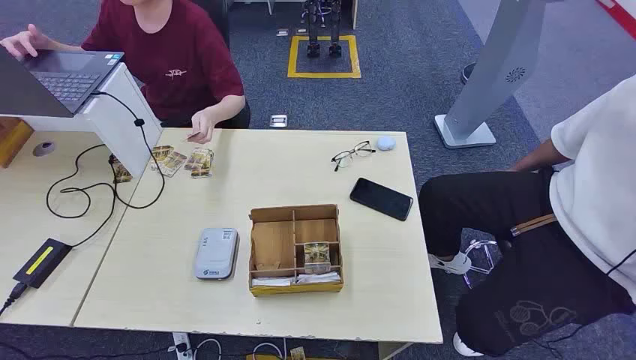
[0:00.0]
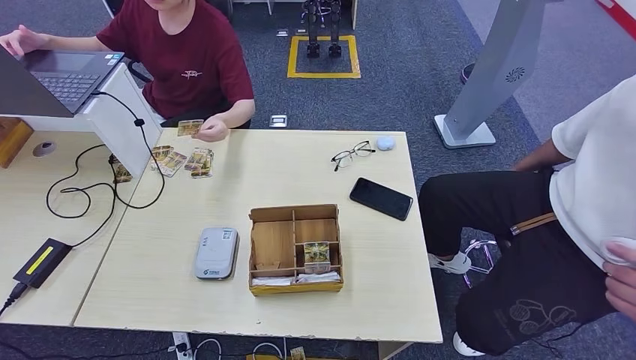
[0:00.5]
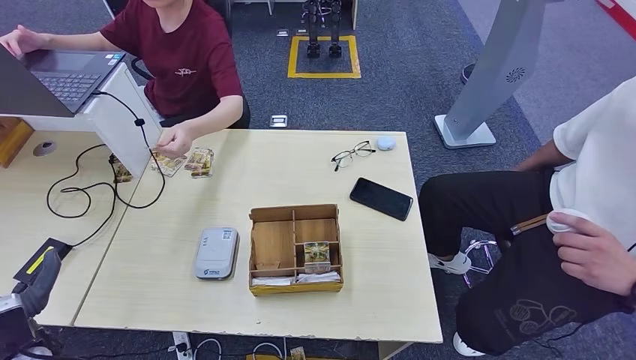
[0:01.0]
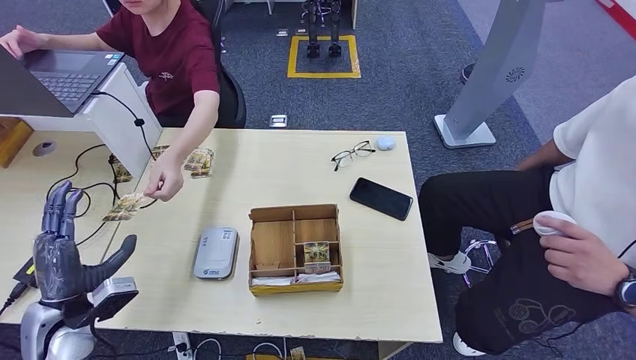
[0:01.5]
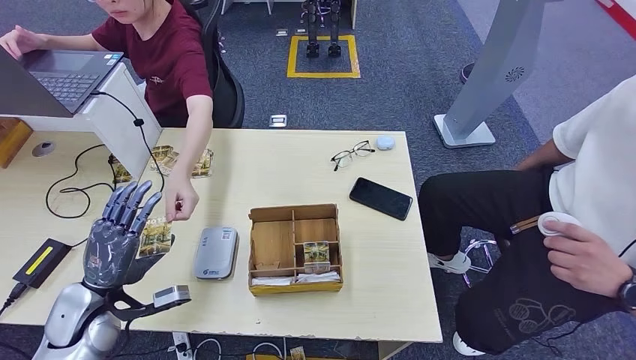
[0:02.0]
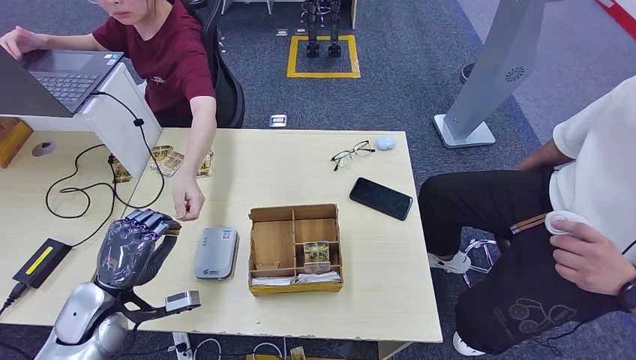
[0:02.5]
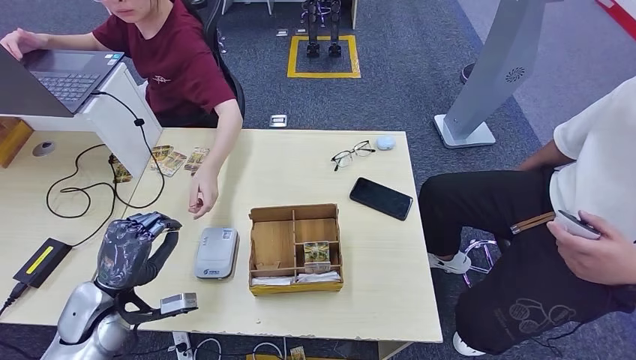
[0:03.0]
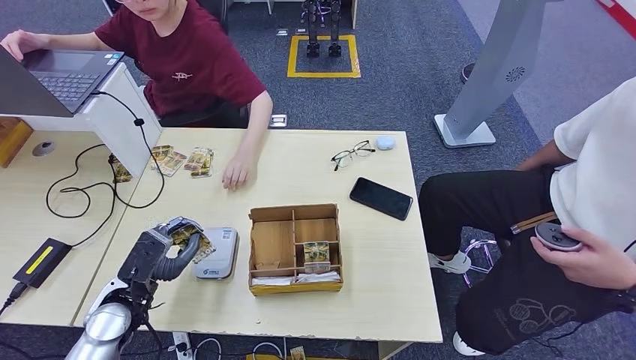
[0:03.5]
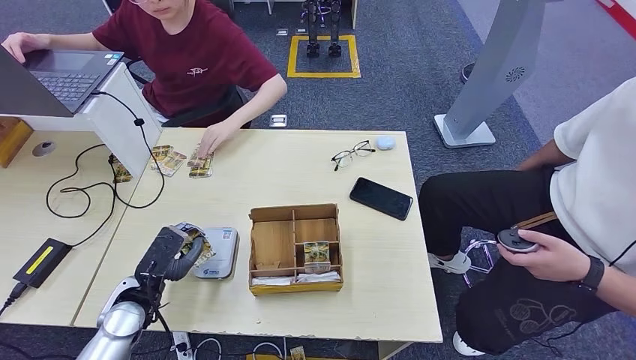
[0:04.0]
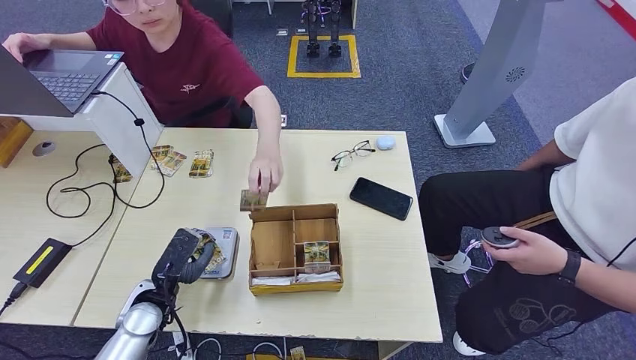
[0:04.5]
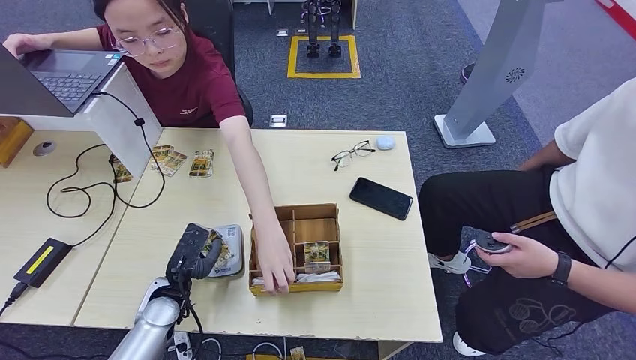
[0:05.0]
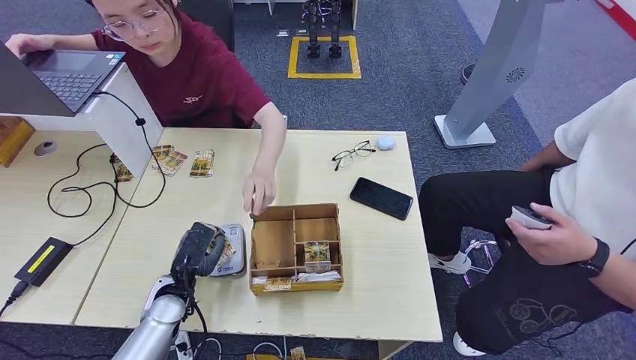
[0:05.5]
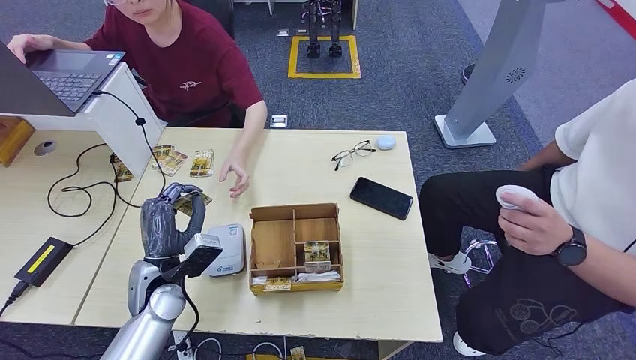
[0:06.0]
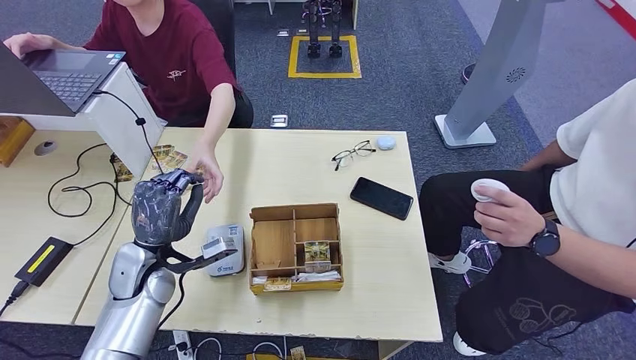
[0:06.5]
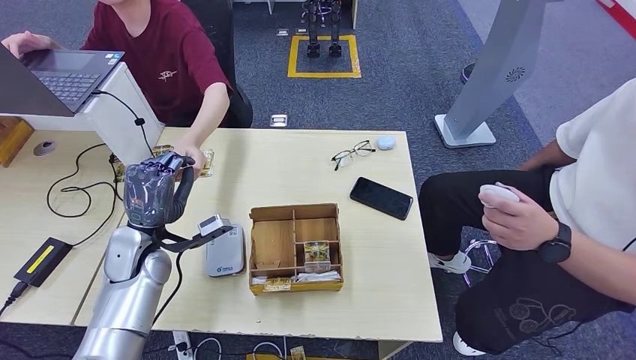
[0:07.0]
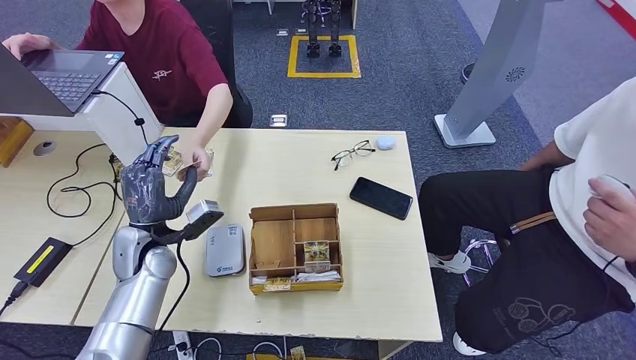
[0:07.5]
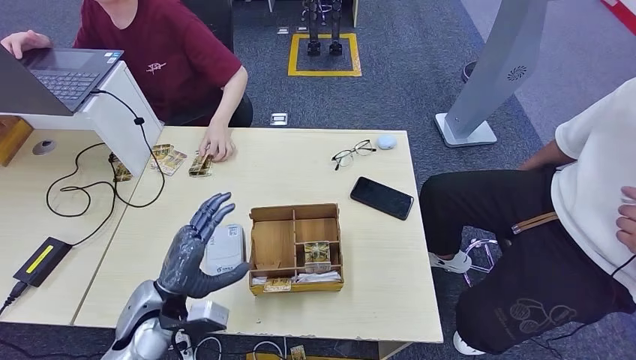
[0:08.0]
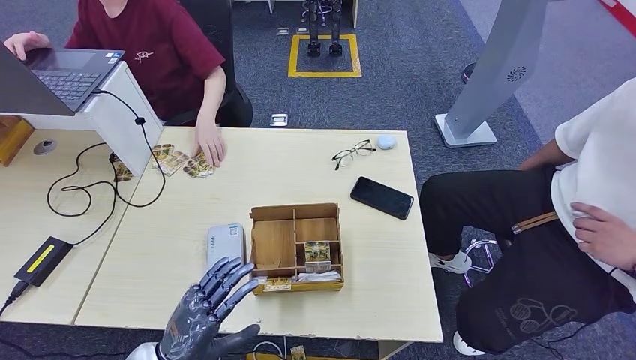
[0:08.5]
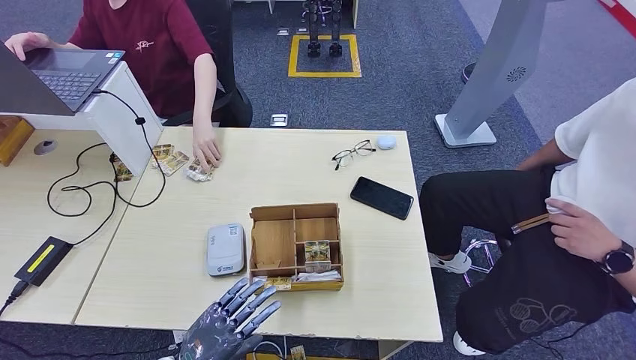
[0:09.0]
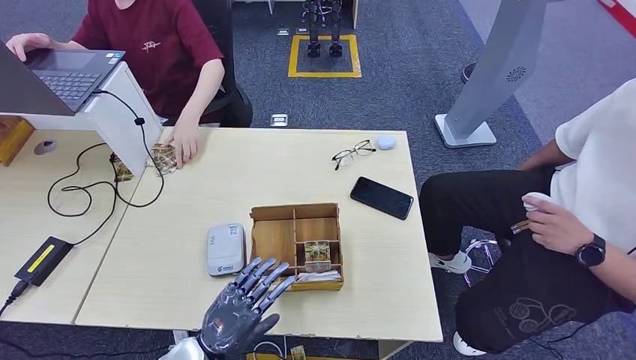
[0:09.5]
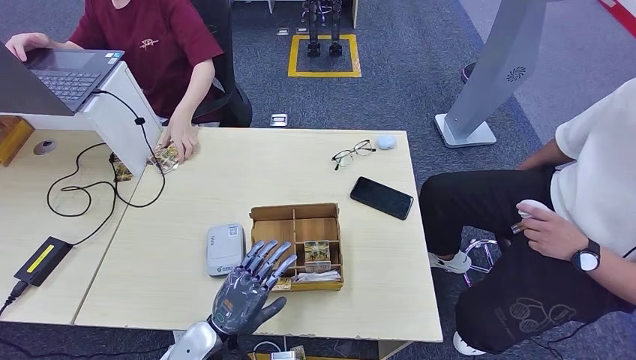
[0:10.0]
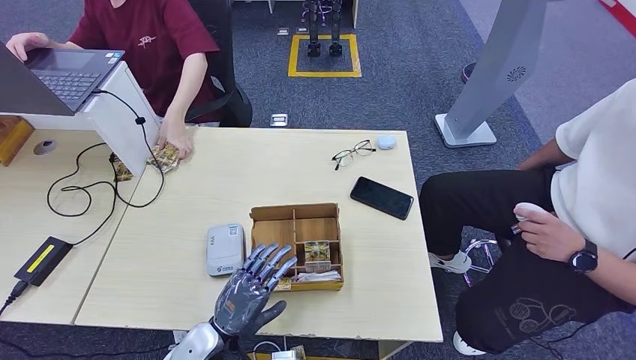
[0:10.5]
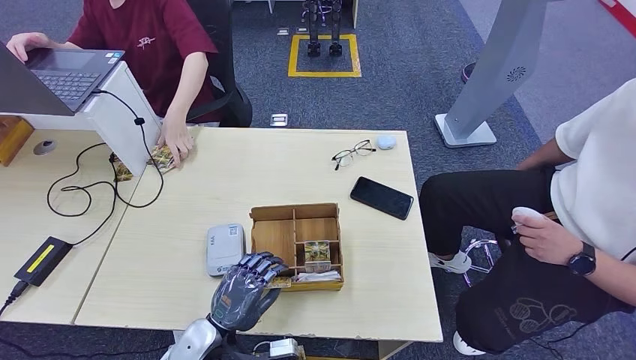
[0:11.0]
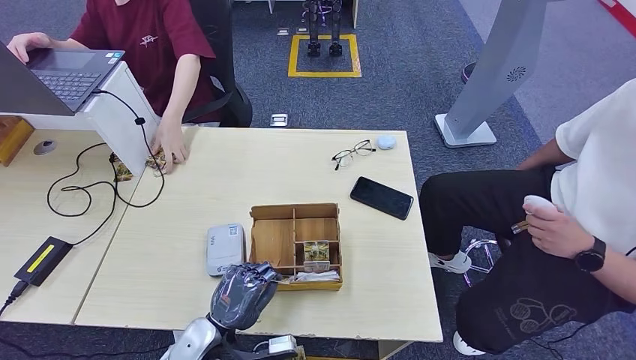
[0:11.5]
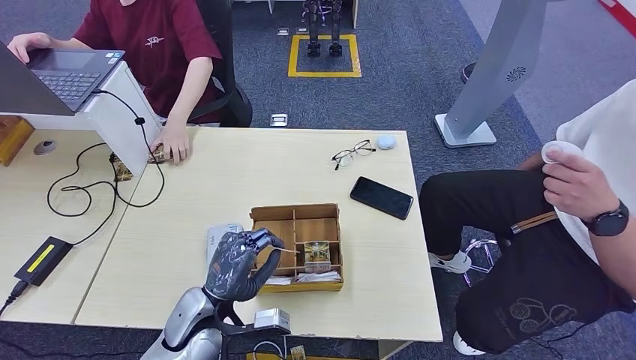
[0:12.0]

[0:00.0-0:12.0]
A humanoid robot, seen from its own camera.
Step, 0:00.0 to 0:02.5: Take the ID card from the person's hand.
Step, 0:03.0 to 0:05.0: Place the ID card on the card reader.
Step, 0:06.0 to 0:08.0: Hand the ID card to the person.
0:02.0 to 0:04.0: The left hand ends up some 5 cm from where it was.
0:04.0 to 0:06.0: The left hand goes roughly 5 cm to the right.
0:08.0 to 0:10.0: The left hand travels to the right and downward by roughly 10 cm.
0:10.0 to 0:12.0: The left hand shifts by some 5 cm.

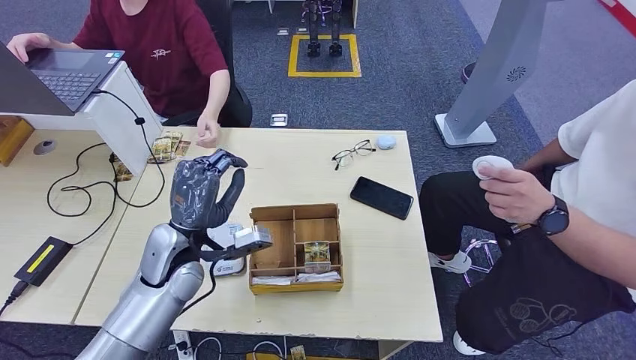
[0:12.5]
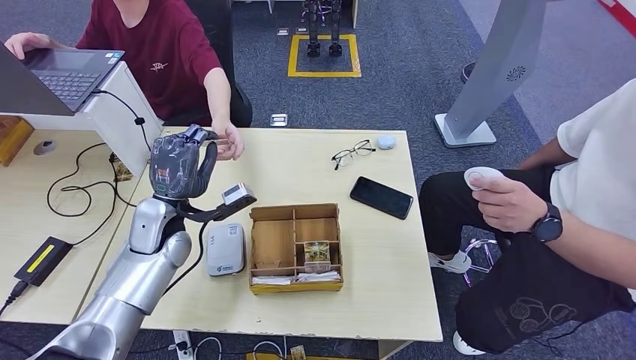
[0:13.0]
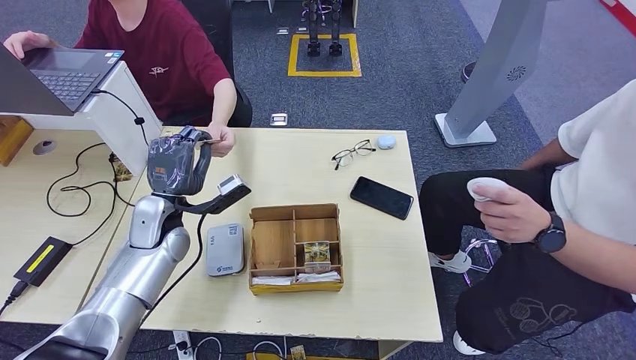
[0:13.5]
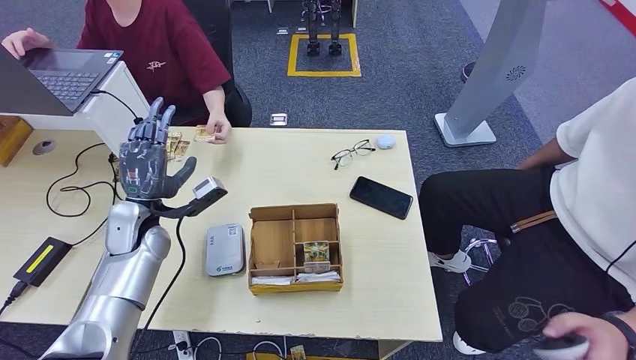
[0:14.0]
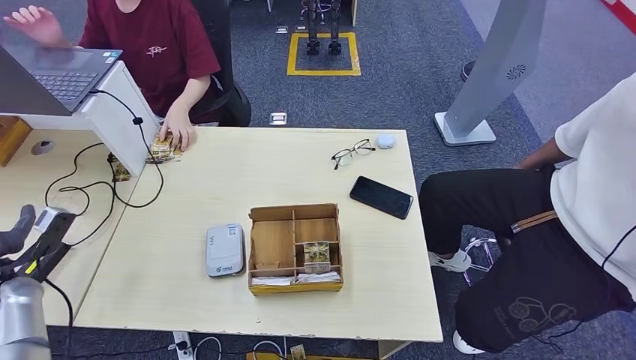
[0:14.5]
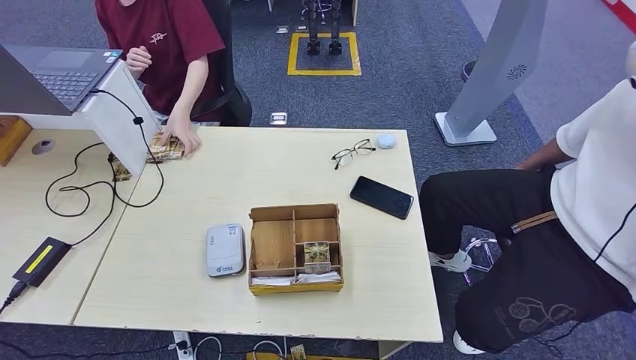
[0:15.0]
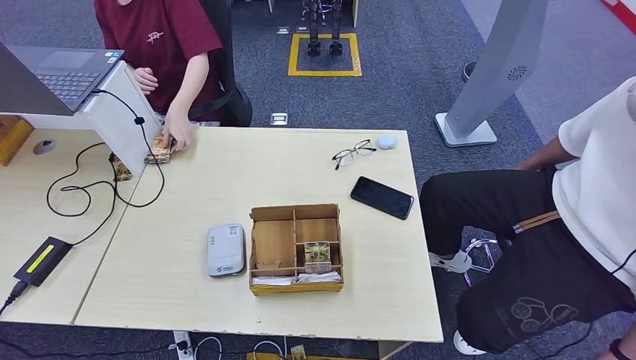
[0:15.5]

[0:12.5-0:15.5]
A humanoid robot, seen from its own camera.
Step, 0:13.0 to 0:15.5: Hand the room key to the person.
0:12.5 to 0:14.0: The left hand travels to the left and forward by roughly 10 cm.
0:14.0 to 0:15.5: The left hand shifts some 50 cm backward and downward. Meanwhile the right hand is displaced backward by about 5 cm.

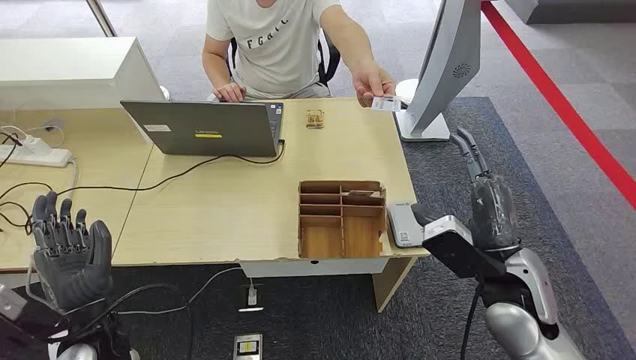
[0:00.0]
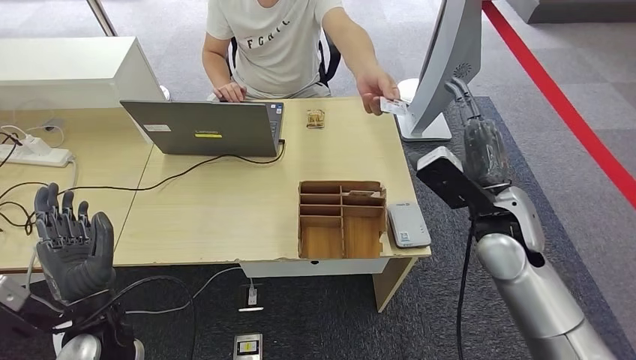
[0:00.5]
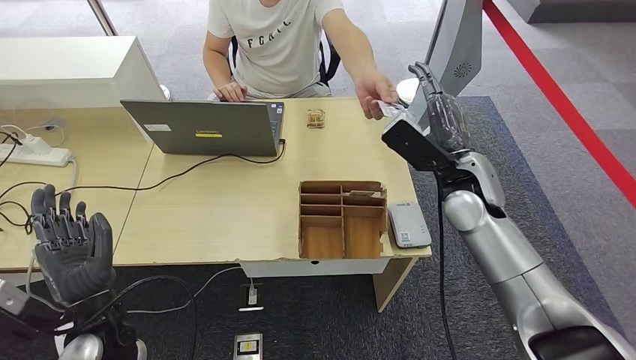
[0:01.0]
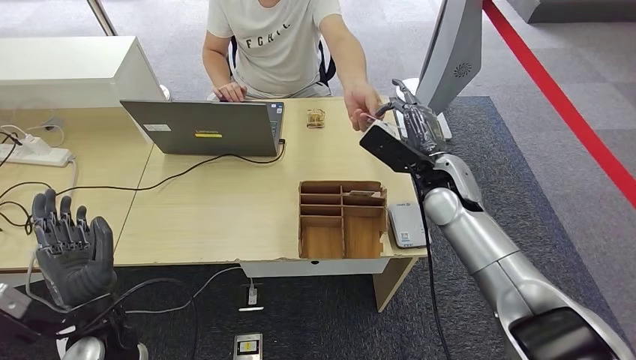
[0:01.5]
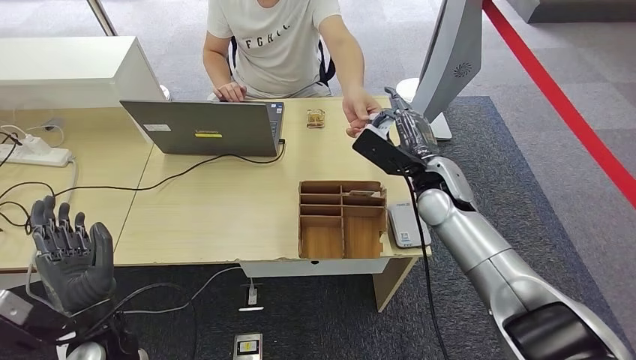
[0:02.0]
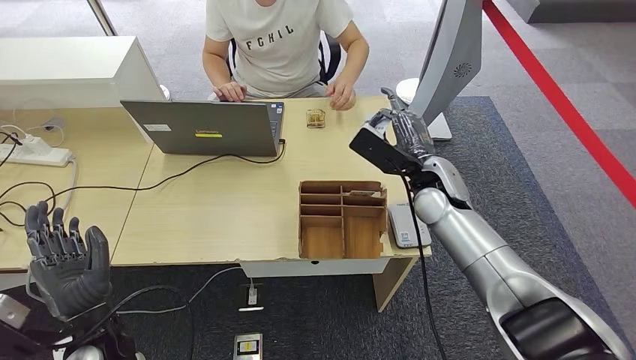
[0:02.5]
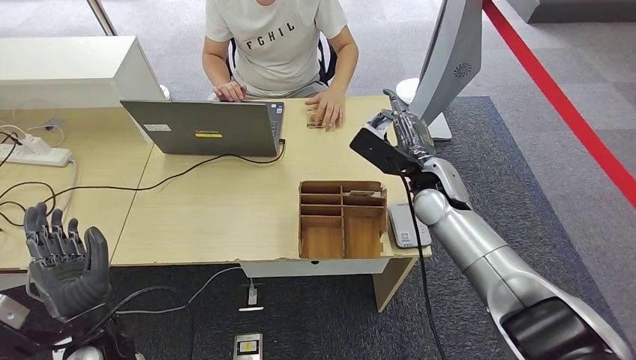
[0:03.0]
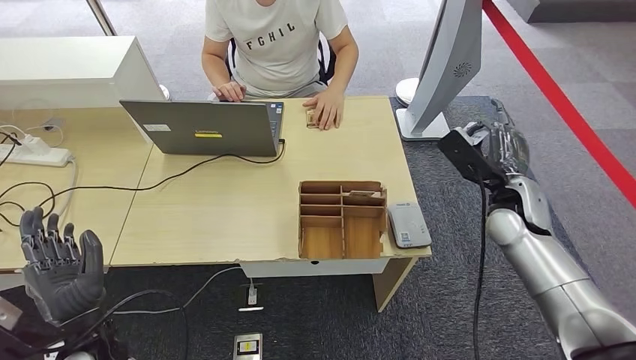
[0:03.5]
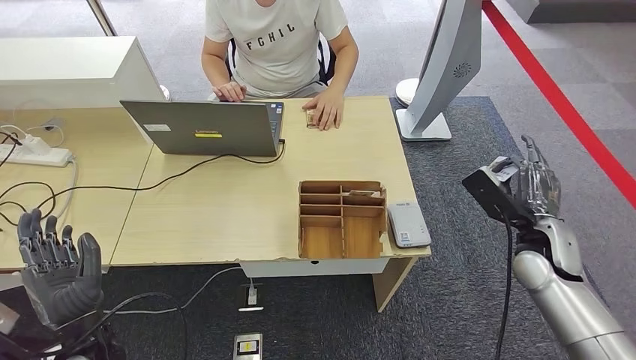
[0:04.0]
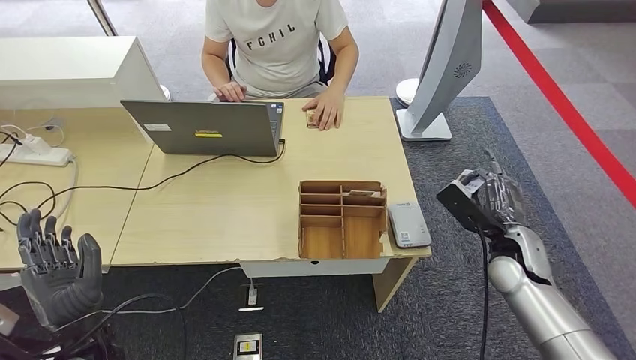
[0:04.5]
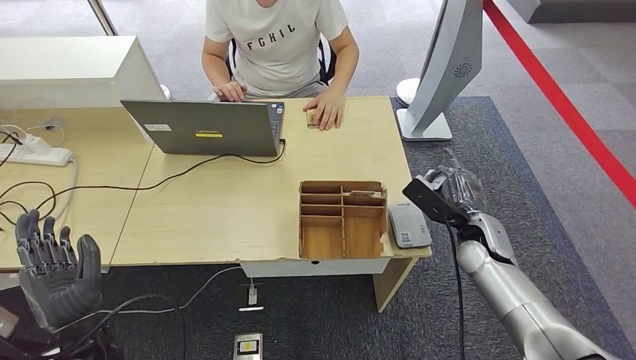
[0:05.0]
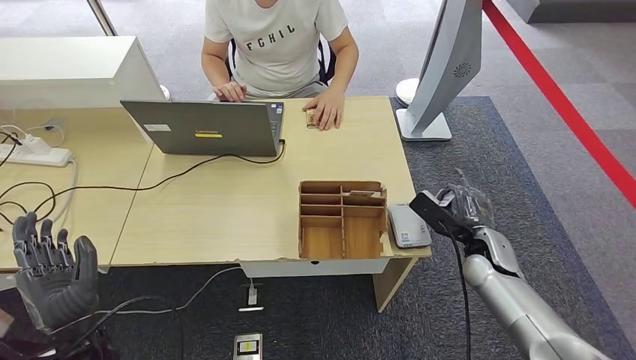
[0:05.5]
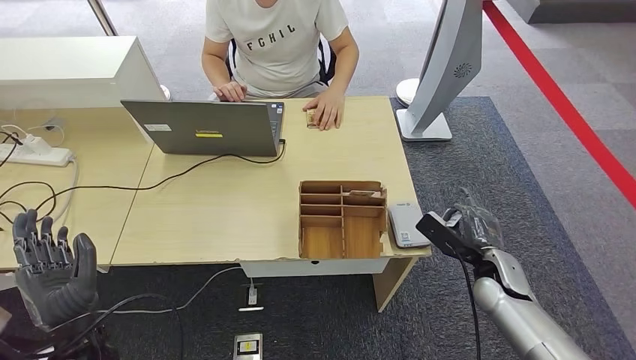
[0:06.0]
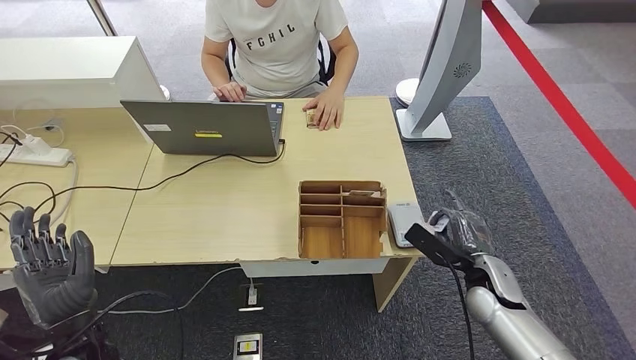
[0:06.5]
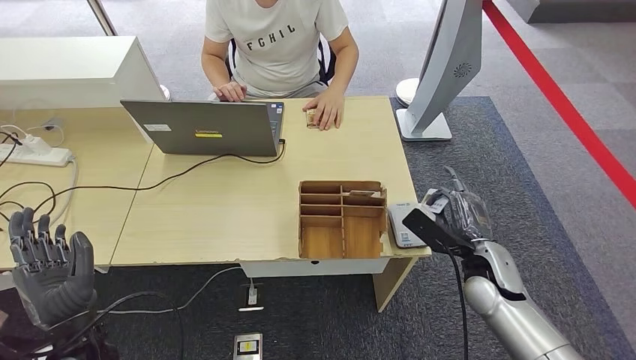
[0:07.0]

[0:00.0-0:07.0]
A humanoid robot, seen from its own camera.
Step, 0:00.0 to 0:03.5: Take the ID card from the person's hand.
0:02.0 to 0:03.5: The right hand goes roughly 10 cm to the right.
0:03.5 to 0:05.0: The right hand shifts some 10 cm downward.
0:05.0 to 0:07.0: The right hand moves backward, roughly 5 cm.
